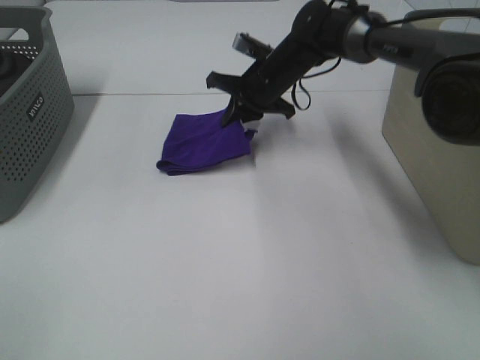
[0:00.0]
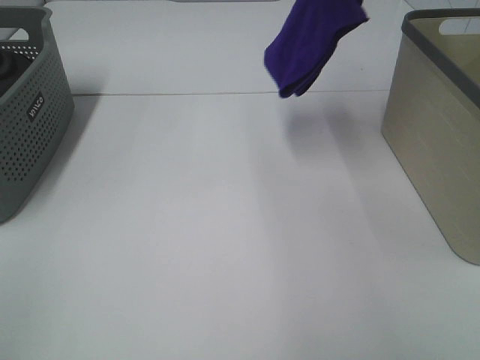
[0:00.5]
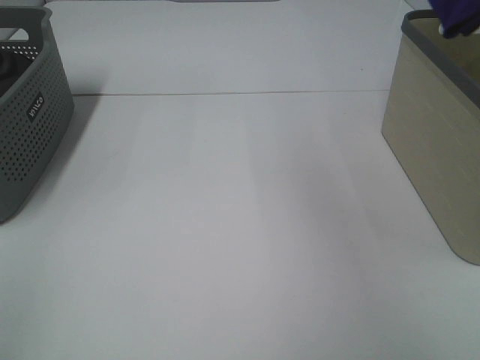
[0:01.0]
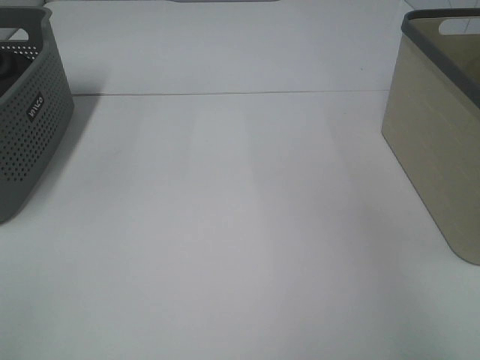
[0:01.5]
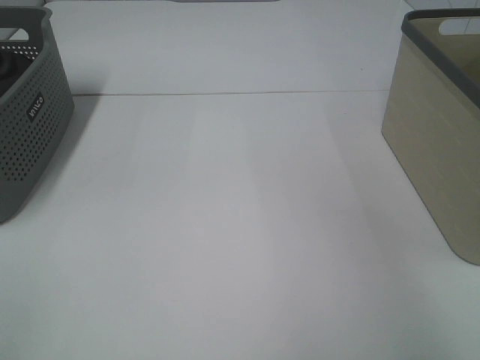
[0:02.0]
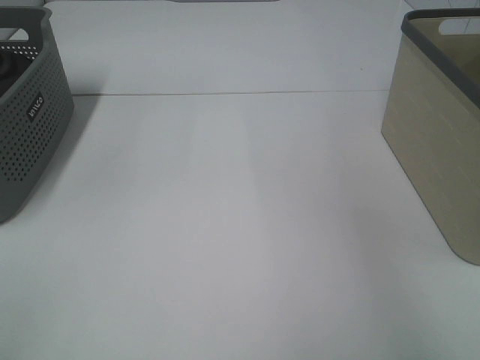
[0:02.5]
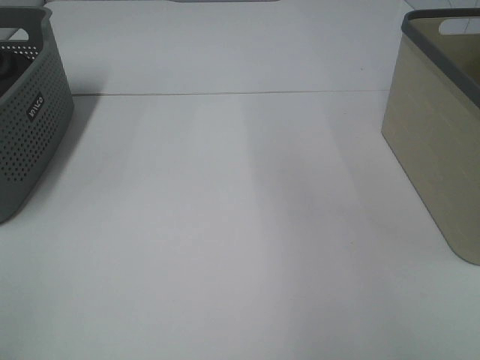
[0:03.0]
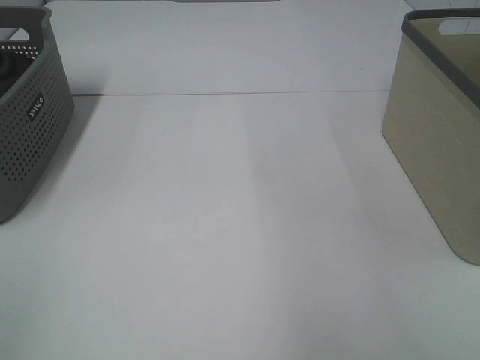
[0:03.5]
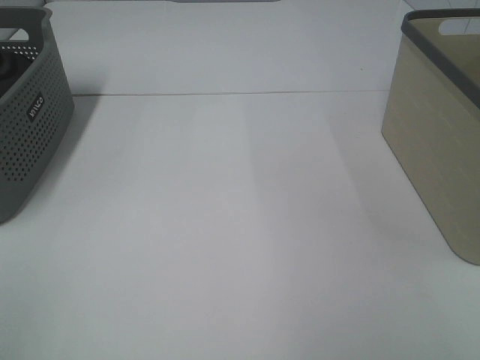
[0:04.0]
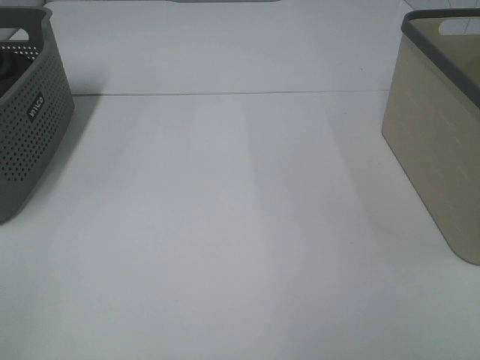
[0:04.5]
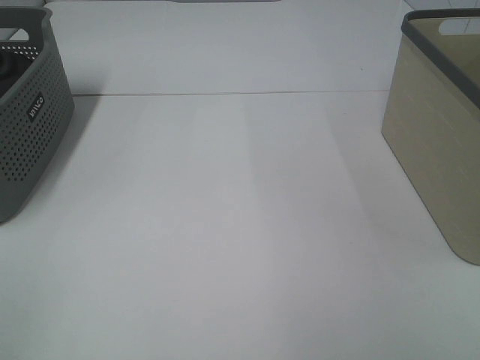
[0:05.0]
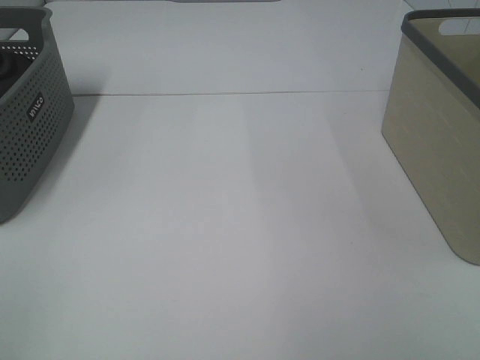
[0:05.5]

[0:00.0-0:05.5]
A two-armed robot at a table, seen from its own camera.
Step, 0:00.0 to 0:02.0: Right hand: place the purple towel in right basket.
0:00.0 to 0:02.0: The right gripper is displaced to the right and upward by about 40 cm, and opens up.

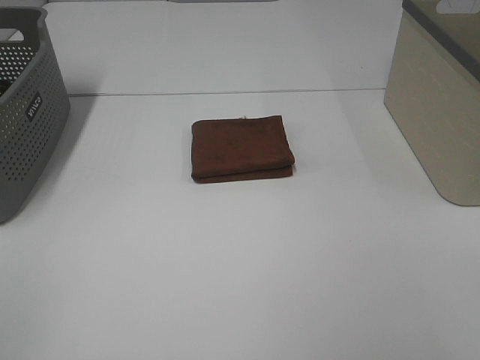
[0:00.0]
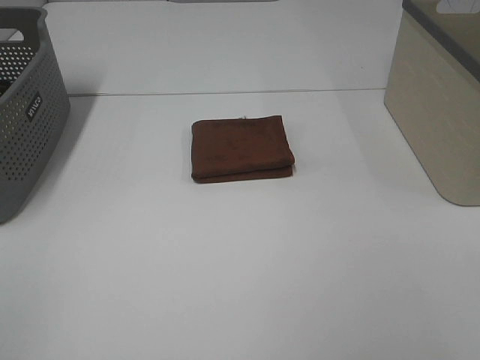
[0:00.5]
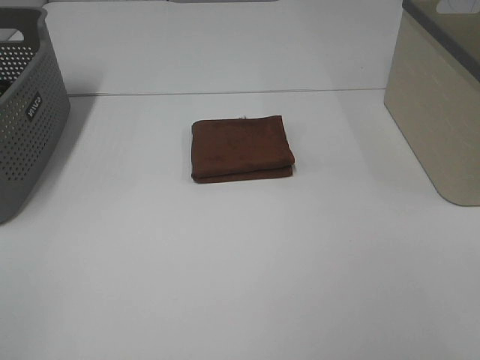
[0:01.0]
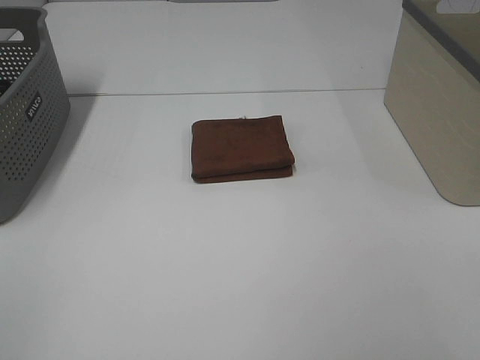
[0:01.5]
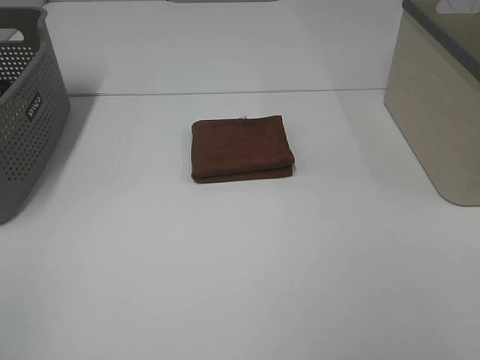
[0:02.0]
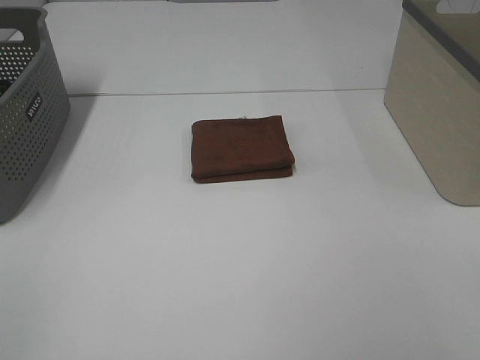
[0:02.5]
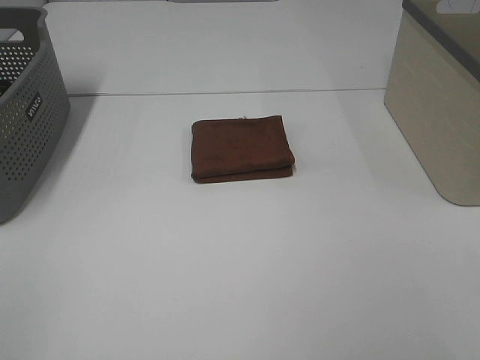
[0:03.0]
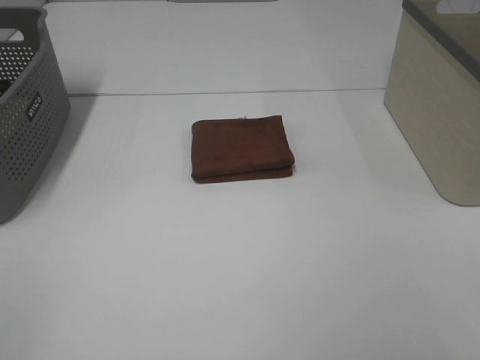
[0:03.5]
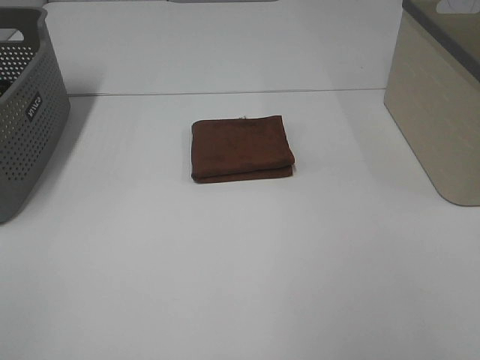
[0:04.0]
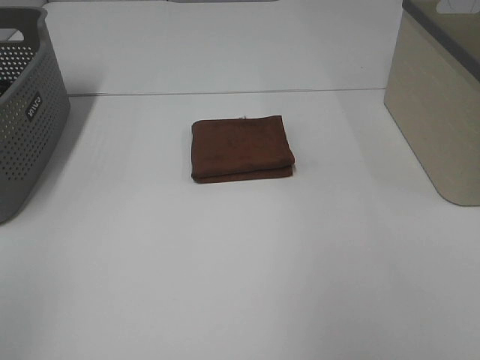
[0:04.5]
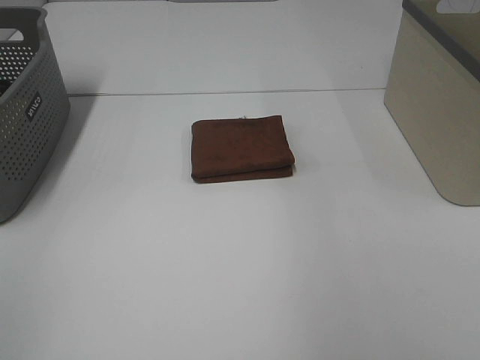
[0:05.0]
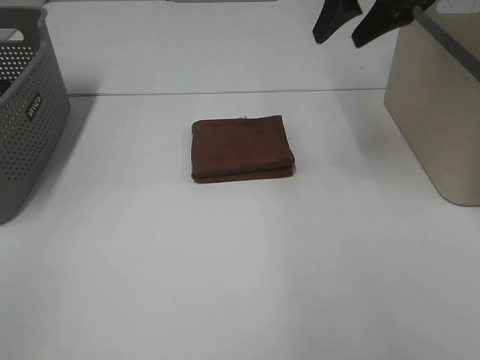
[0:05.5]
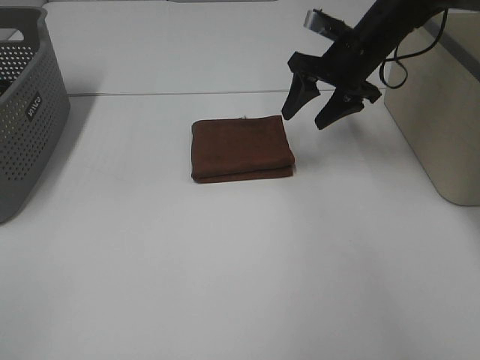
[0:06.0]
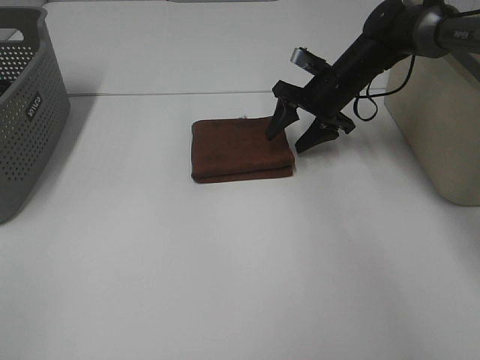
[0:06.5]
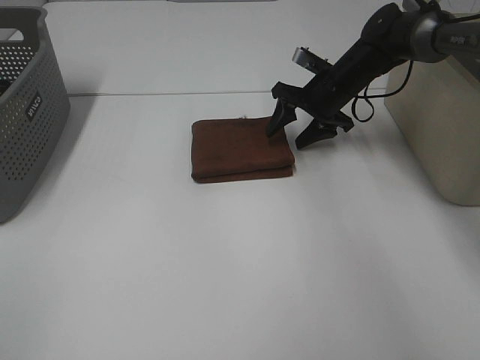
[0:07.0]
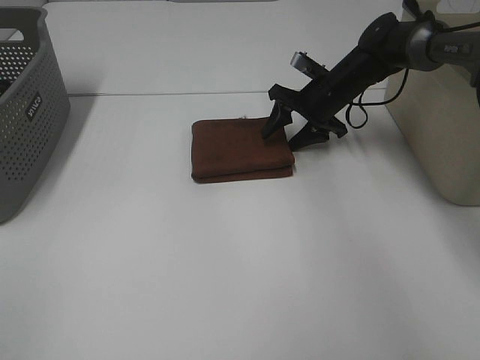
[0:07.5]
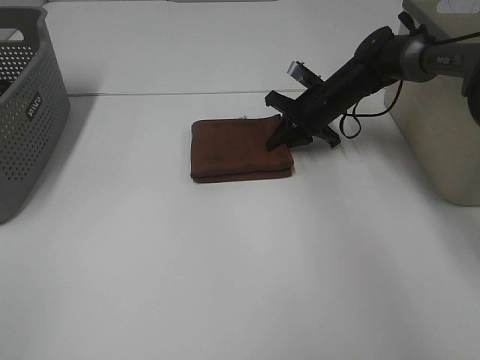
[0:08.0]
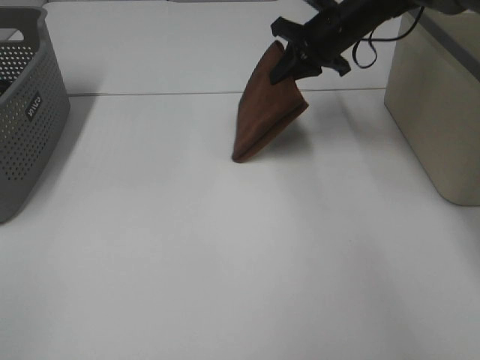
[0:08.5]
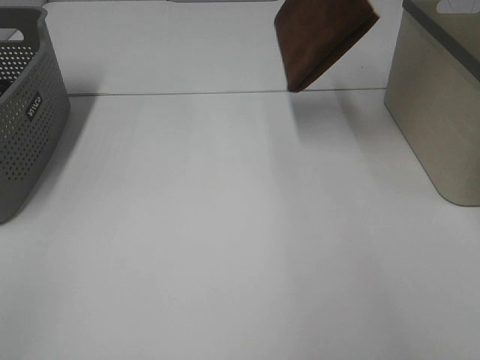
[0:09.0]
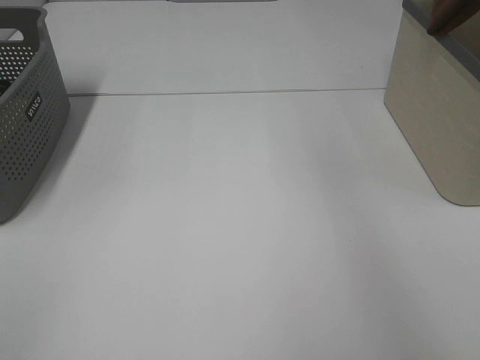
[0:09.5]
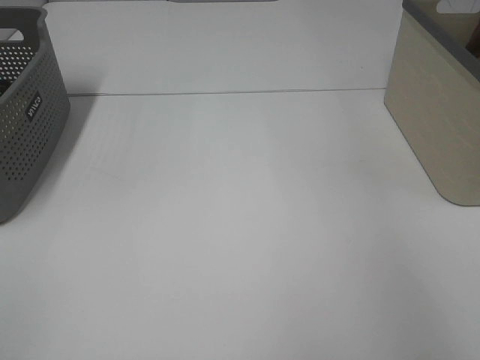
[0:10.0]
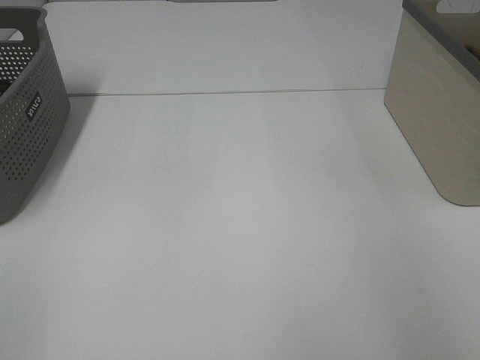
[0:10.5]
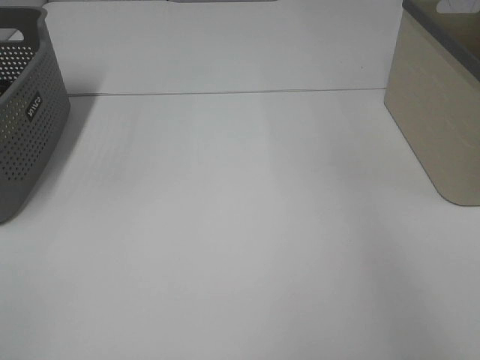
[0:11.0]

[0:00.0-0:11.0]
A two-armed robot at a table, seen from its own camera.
Step, 0:00.0 to 0:07.5: Right hand: grab the folded brown towel.
Step, 0:08.0 to 0:10.5: Right hand: place the brown towel in right basket.
0:00.0 to 0:03.5: The two grippers keep their place.
0:03.5 to 0:05.5: The right gripper shifts approximately 40 cm forward.
0:05.5 to 0:07.5: The right gripper shifts about 20 cm downward.
0:07.5 to 0:09.0: The right gripper goes approximately 25 cm upward, and closes its fingers.
0:09.0 to 0:11.0: The right gripper shifts approximately 15 cm to the right, and opens its fingers.

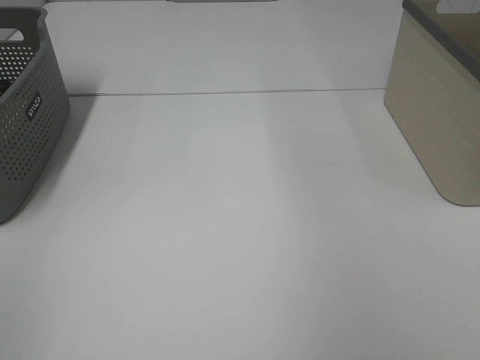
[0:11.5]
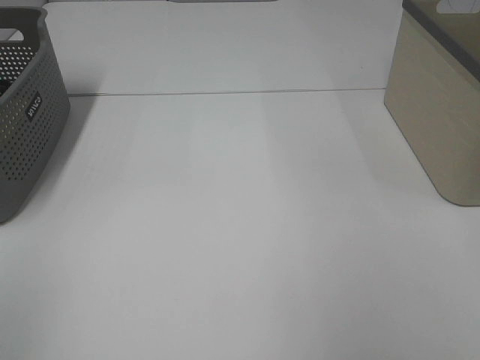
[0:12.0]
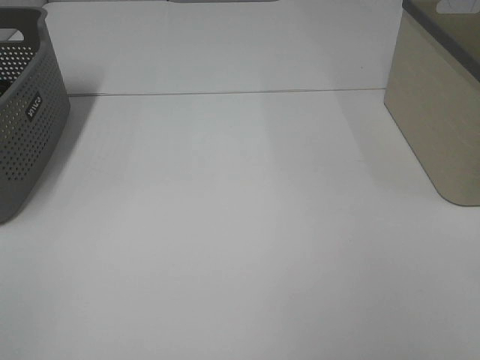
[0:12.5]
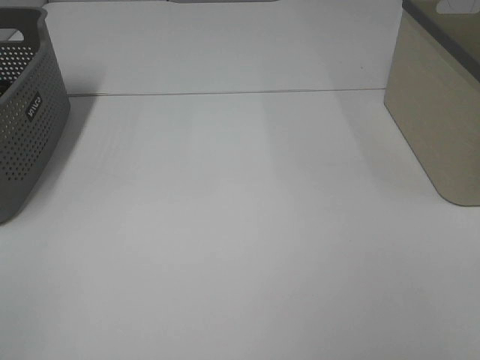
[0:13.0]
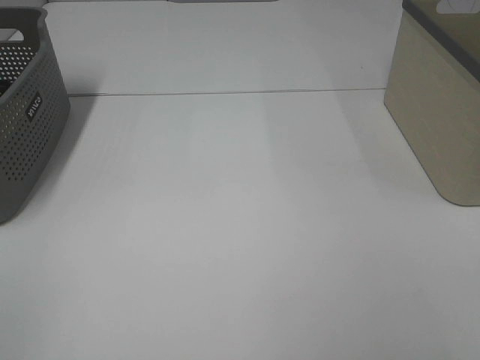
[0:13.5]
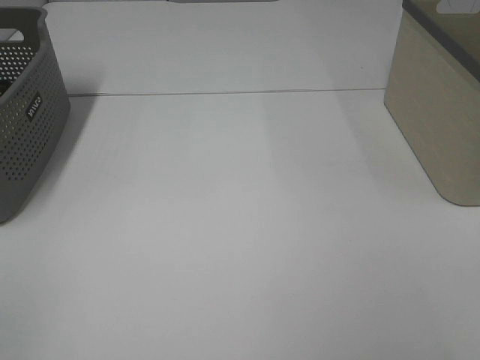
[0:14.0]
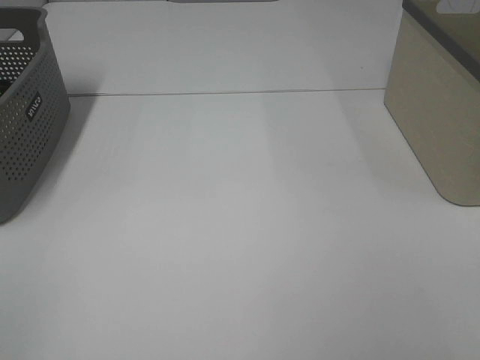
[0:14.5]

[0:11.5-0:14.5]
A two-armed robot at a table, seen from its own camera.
0:13.0 to 0:14.5: The two grippers keep their place.
